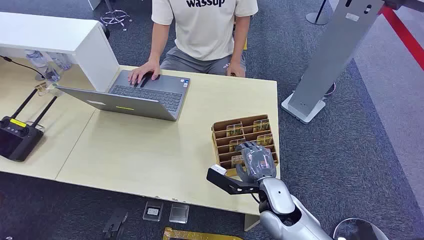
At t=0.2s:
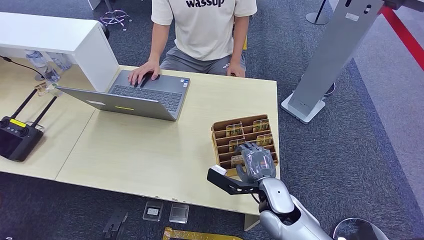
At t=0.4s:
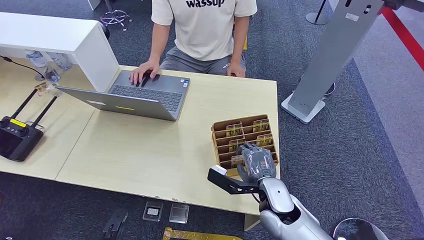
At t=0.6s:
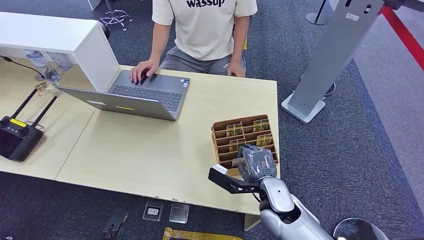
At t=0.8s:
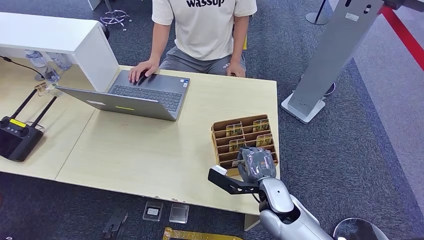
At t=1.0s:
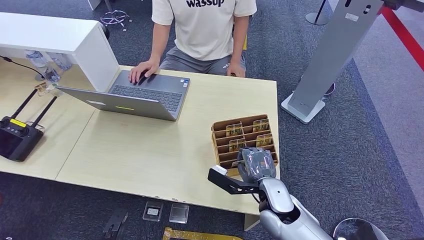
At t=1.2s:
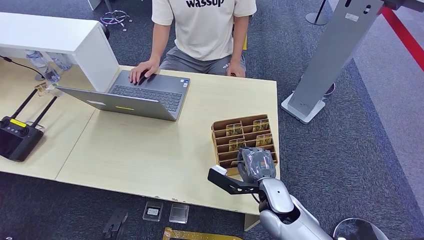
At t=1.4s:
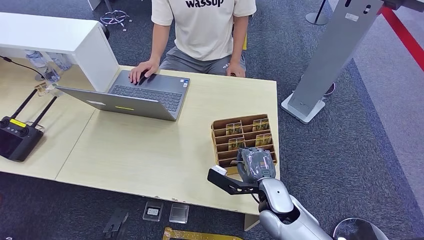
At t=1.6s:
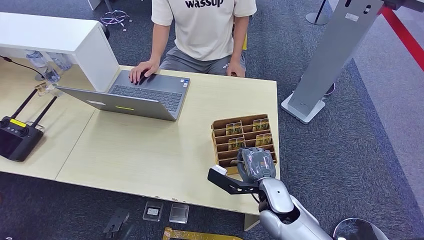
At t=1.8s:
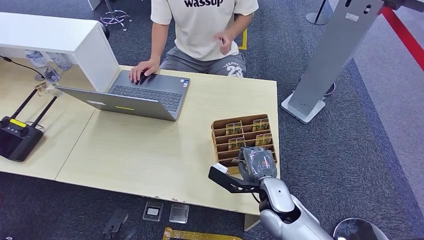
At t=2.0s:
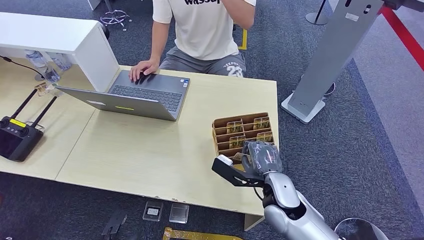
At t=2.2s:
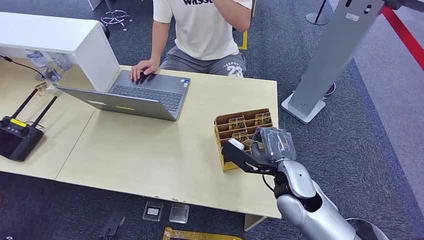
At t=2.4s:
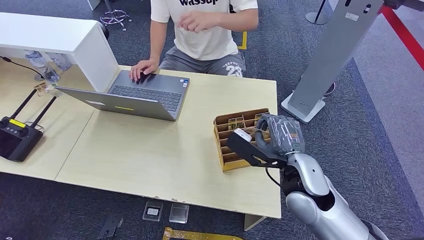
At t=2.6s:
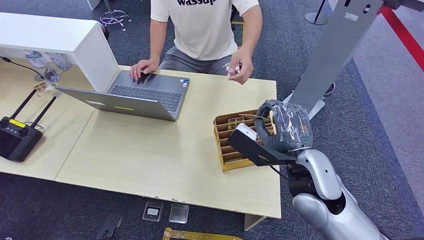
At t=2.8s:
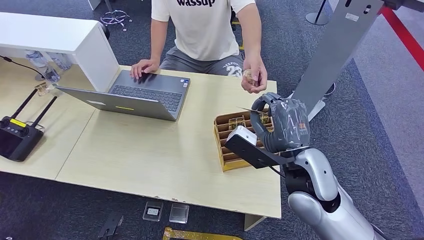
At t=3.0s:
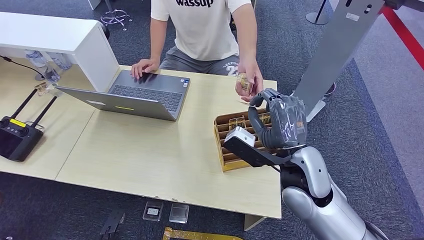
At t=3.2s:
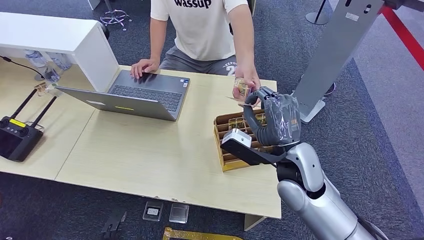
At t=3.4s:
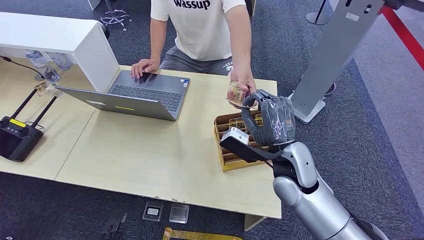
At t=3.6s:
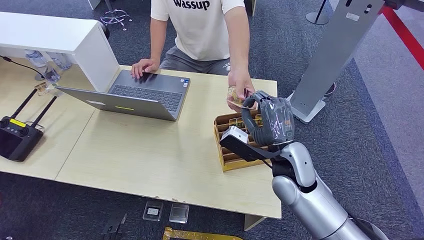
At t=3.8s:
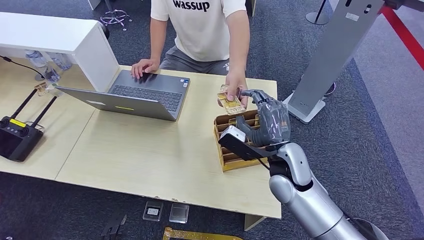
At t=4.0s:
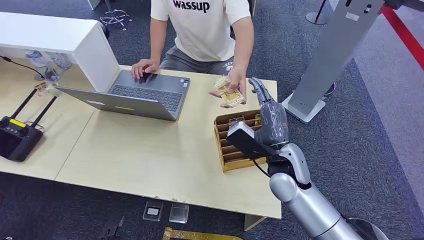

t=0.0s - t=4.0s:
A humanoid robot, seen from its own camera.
Step, t=0.0s - t=2.0s: Pick up the room card from the card holder.
Step, t=2.6s - t=3.8s: Hand the room card to the target.
t=1.4s - t=2.6s: The right hand moves upward, about 15 cm.
t=2.6s - t=4.0s: The right hand is displaced downward and forward by about 10 cm.

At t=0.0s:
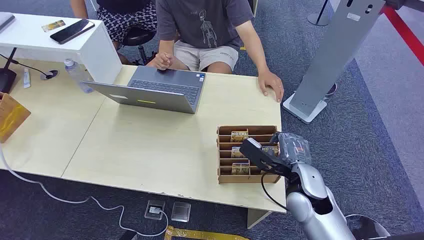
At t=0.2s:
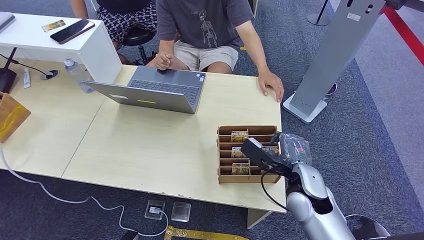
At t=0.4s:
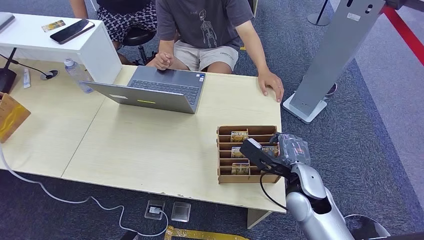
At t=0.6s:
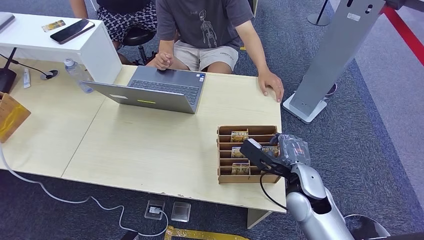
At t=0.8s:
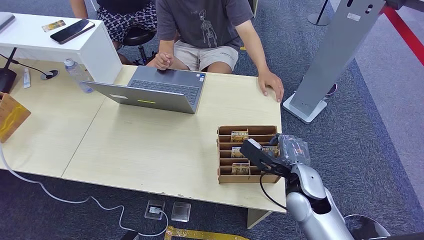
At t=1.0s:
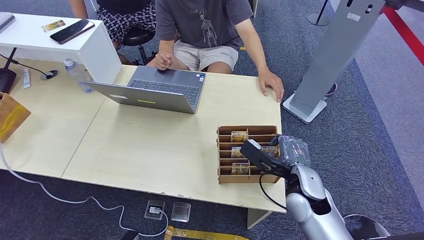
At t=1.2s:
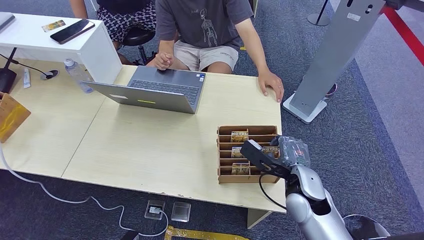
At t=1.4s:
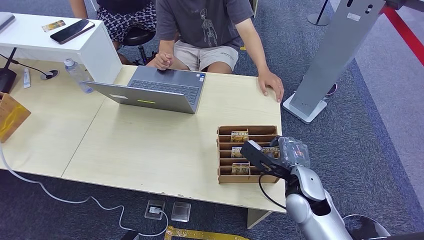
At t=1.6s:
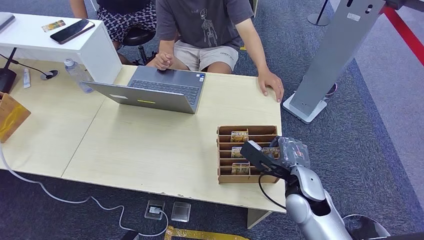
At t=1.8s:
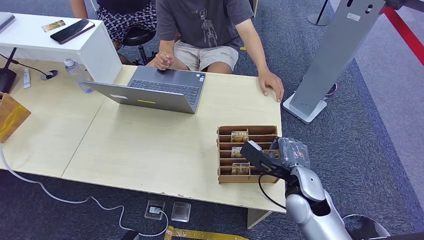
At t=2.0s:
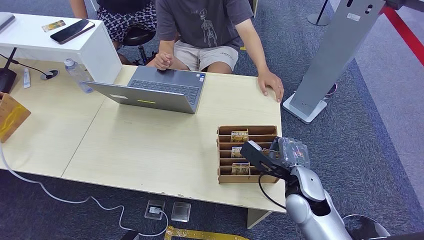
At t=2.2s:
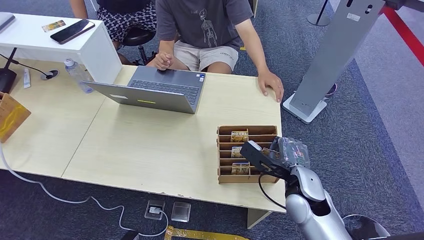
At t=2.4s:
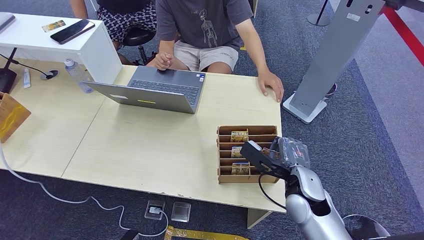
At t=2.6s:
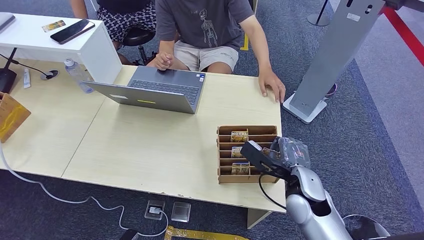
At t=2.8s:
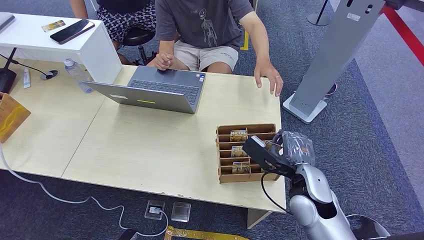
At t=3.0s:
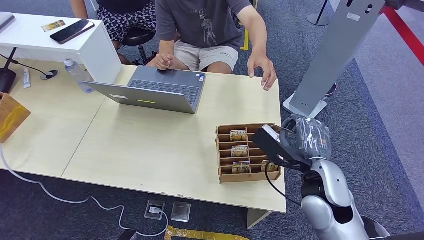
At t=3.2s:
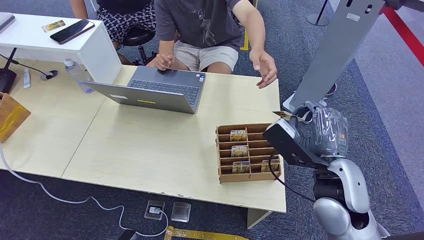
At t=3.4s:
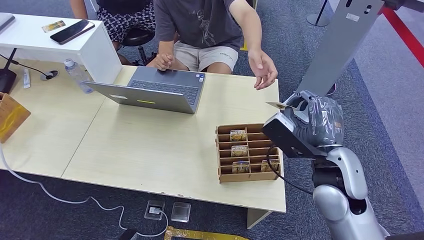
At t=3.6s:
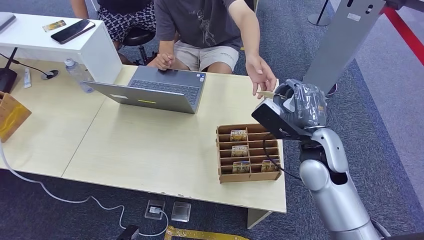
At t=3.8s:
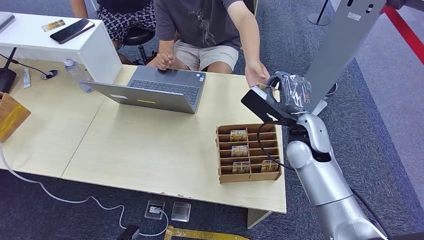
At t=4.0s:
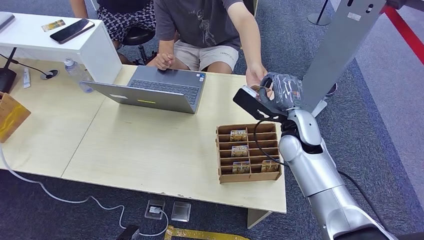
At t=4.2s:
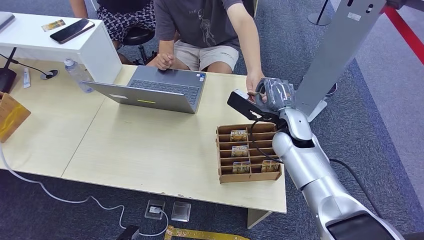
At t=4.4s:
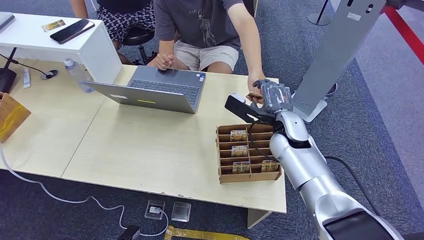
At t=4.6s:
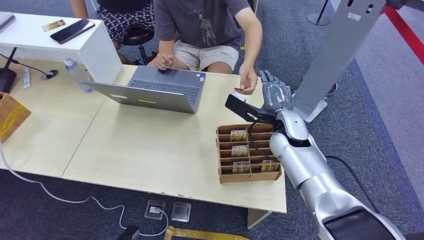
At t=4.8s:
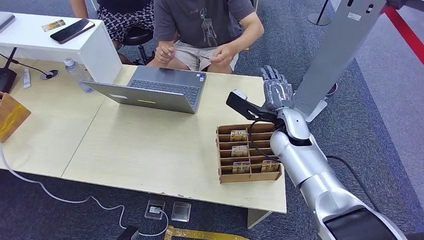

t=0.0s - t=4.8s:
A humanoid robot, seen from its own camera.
Step, t=0.0s - t=3.2s: Pick up the room card from the card holder.
Step, t=3.6s - t=4.8s: Hand the room card to the target.
t=1.6s - t=3.2s: The right hand is displaced upward by roughly 10 cm.
t=3.2s - t=4.8s: The right hand goes approximately 15 cm forward.

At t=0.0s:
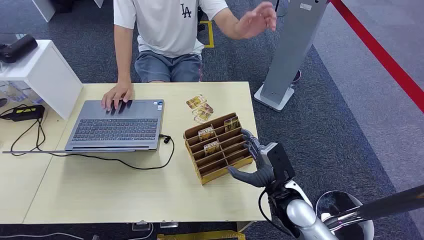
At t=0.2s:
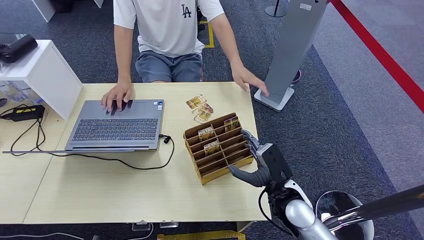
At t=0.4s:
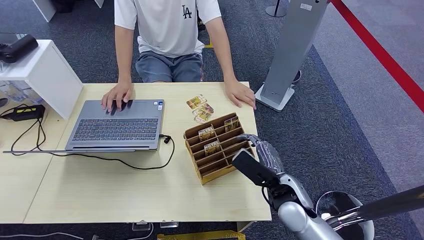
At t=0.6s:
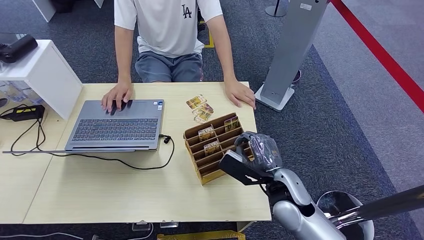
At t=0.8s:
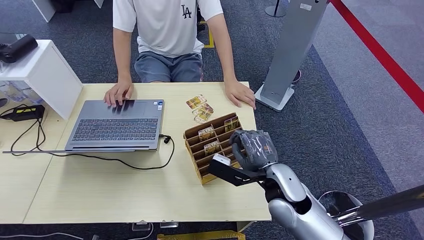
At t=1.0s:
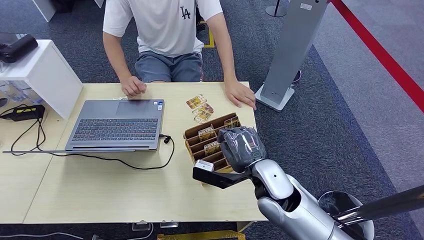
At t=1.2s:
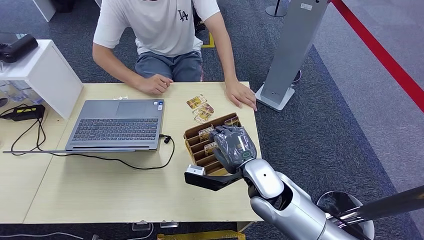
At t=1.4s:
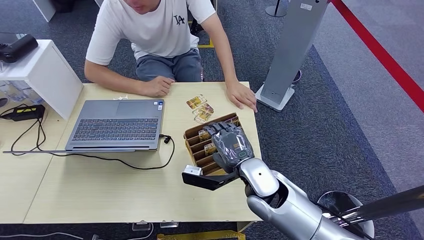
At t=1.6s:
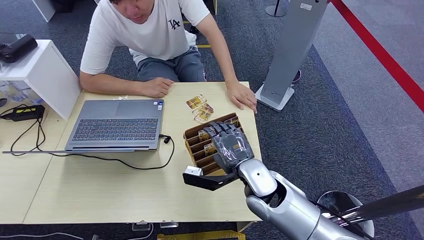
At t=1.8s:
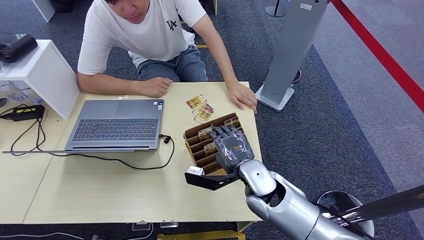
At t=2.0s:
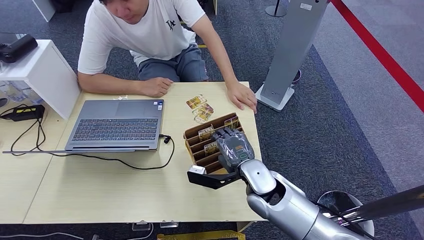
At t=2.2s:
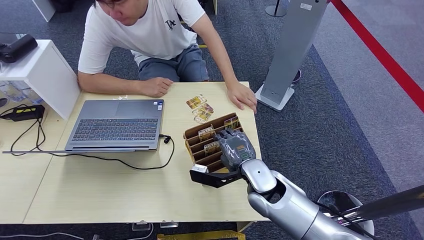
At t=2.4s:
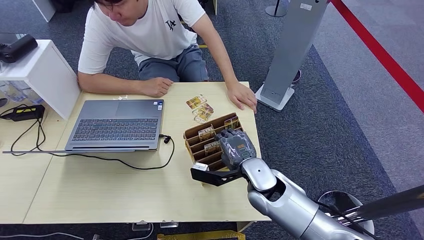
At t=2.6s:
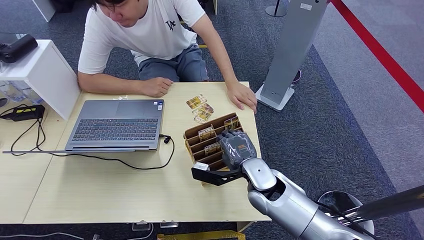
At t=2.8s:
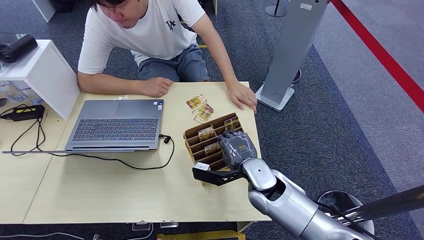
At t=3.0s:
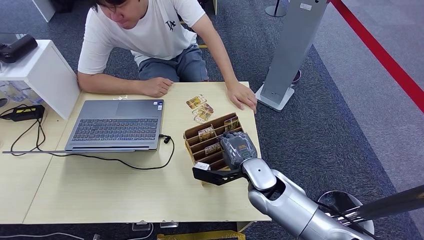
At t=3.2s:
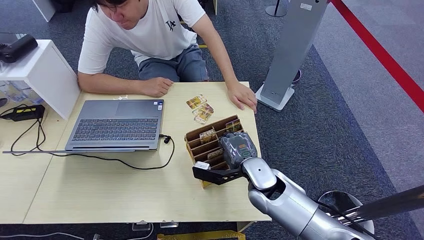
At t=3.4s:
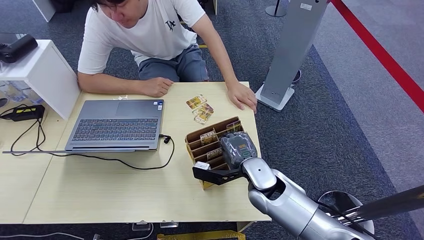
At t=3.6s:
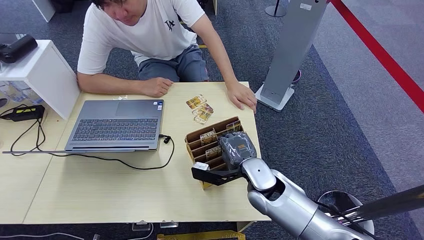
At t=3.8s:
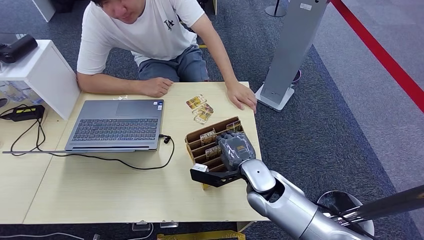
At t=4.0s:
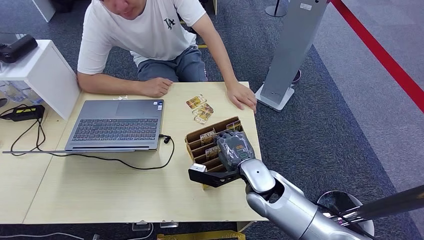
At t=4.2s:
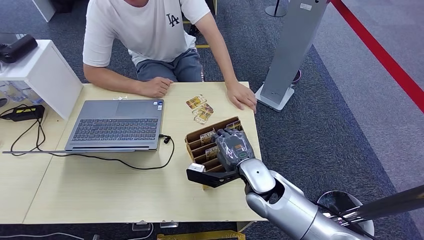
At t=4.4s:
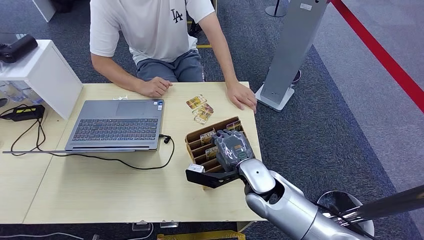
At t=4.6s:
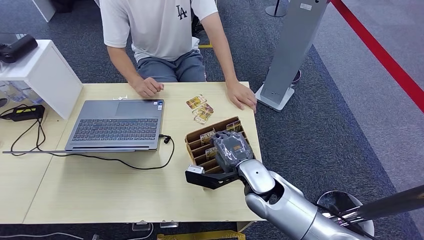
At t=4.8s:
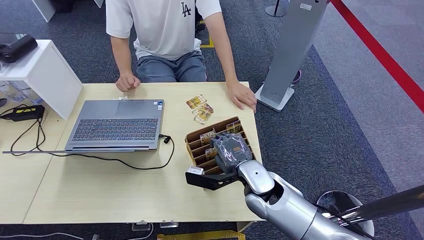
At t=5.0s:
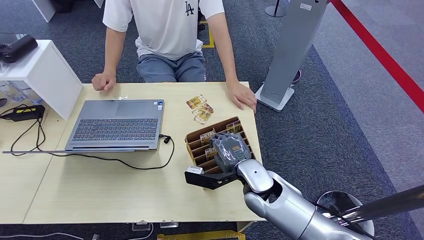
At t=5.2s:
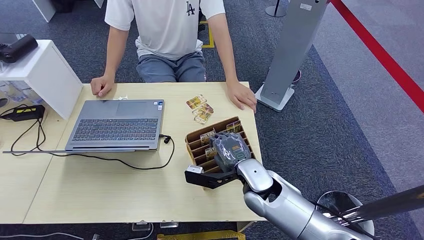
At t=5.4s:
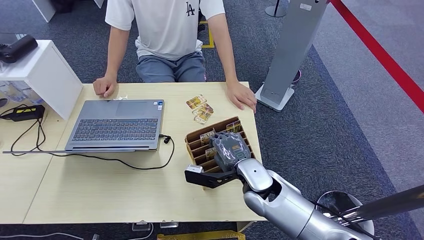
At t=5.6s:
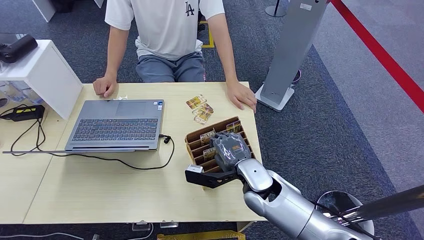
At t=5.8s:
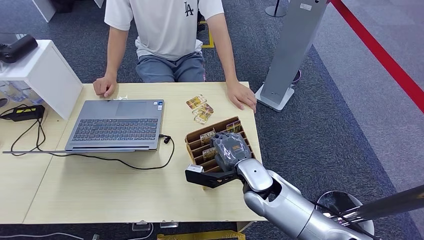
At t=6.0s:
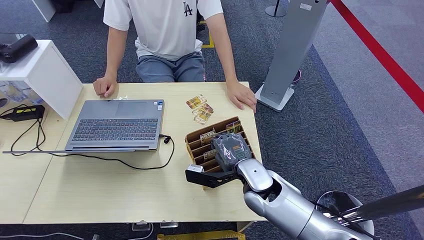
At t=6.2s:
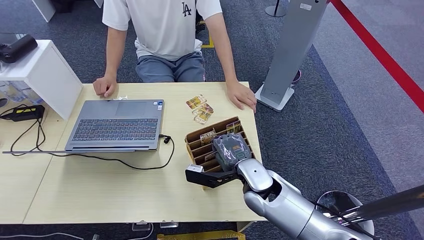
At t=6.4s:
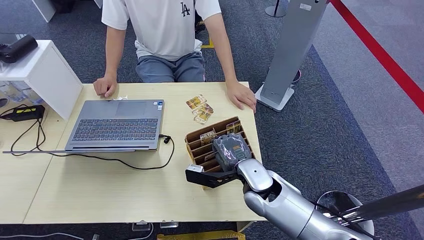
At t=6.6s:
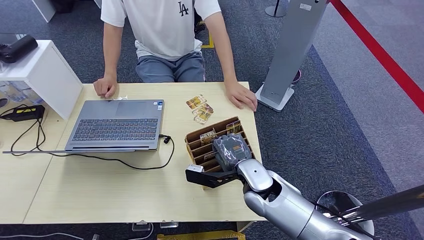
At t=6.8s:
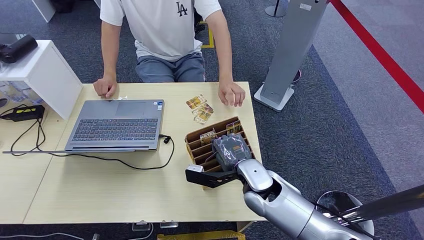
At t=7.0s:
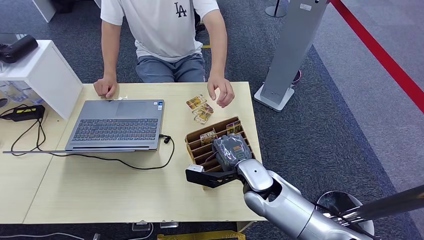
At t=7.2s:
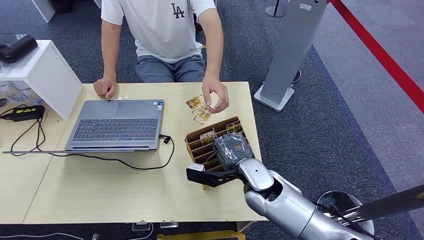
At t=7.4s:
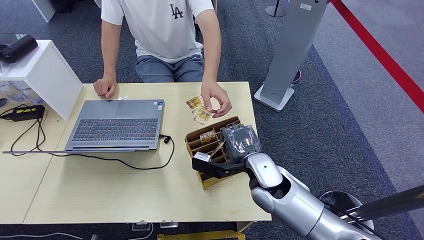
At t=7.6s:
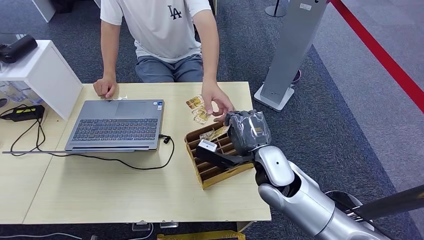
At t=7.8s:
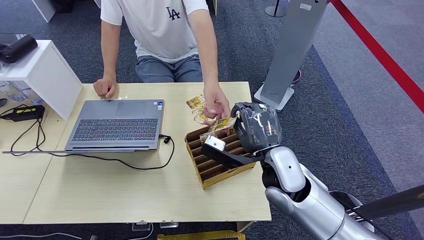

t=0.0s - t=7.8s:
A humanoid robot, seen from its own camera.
Step, t=0.0s - t=7.2s: Pick up the room card from the card holder.
t=1.6s - t=4.6s: The hands stay close to where they were, moving slightly.
t=4.6s - t=6.2s: The two hands keep their place.
t=6.2s - t=7.8s: The right hand shifts approximately 10 cm upward.
